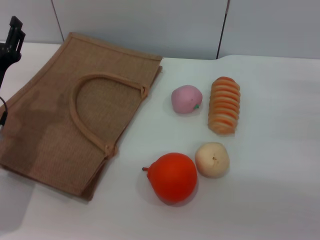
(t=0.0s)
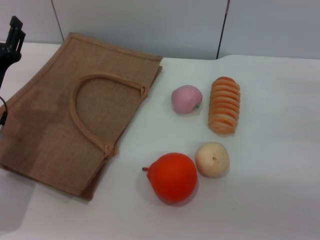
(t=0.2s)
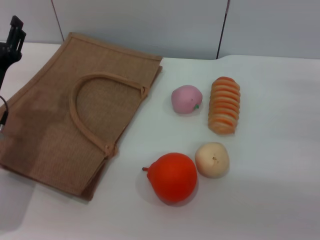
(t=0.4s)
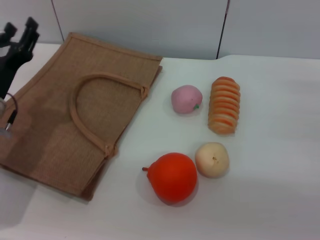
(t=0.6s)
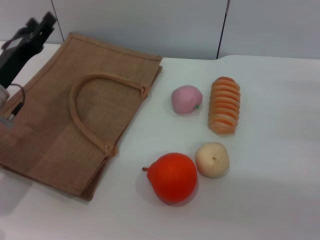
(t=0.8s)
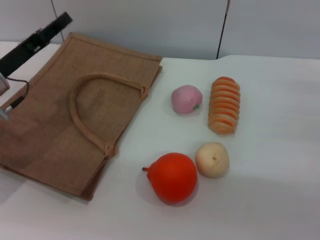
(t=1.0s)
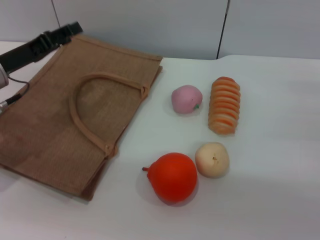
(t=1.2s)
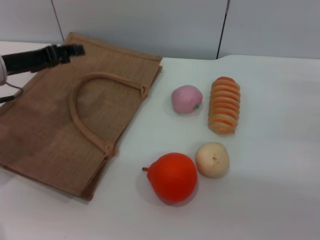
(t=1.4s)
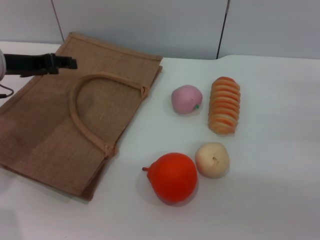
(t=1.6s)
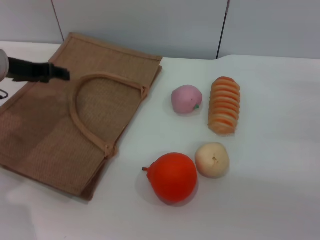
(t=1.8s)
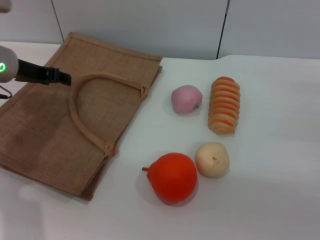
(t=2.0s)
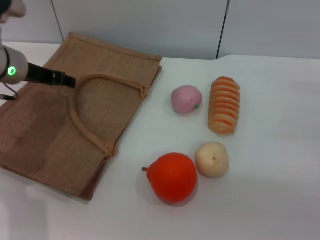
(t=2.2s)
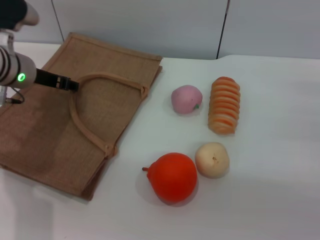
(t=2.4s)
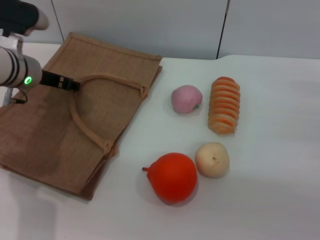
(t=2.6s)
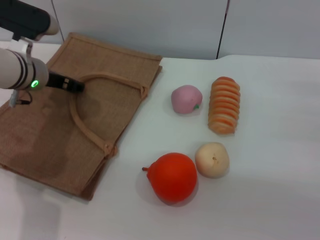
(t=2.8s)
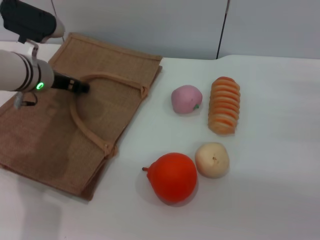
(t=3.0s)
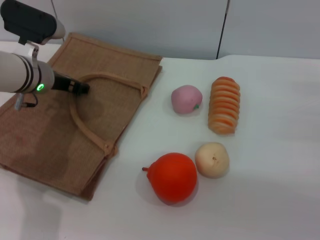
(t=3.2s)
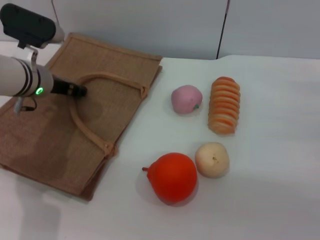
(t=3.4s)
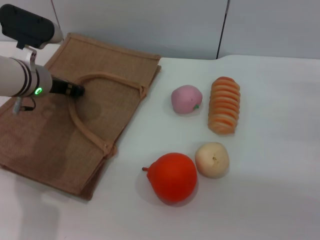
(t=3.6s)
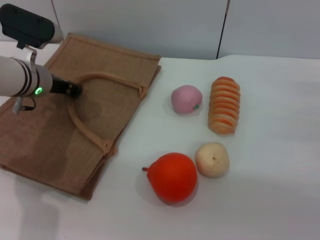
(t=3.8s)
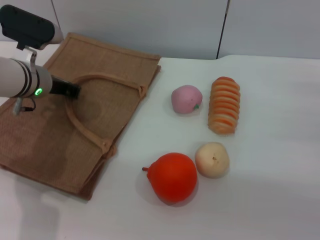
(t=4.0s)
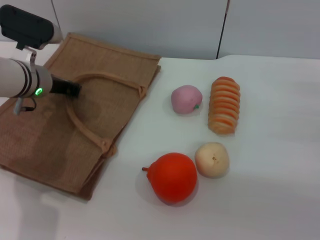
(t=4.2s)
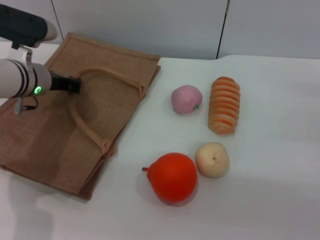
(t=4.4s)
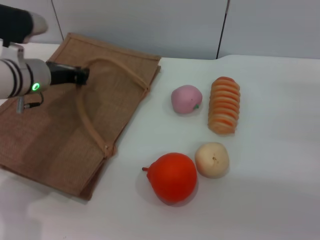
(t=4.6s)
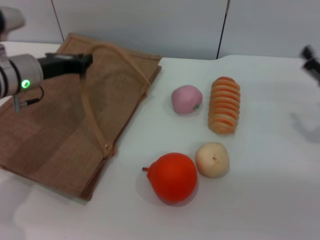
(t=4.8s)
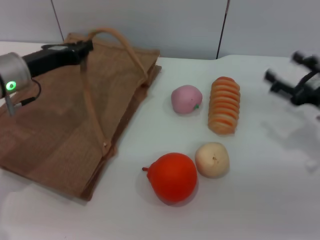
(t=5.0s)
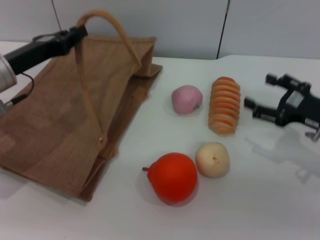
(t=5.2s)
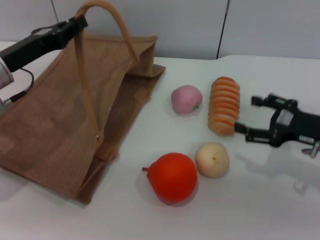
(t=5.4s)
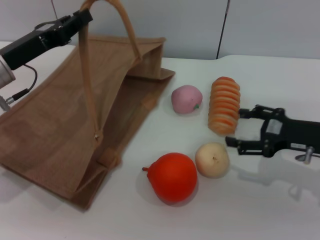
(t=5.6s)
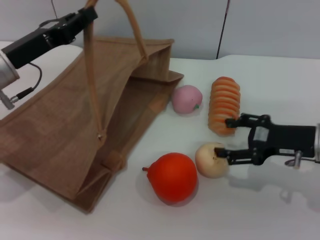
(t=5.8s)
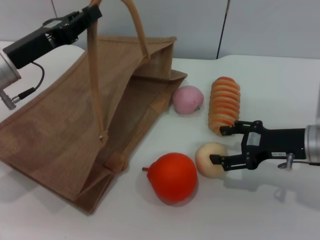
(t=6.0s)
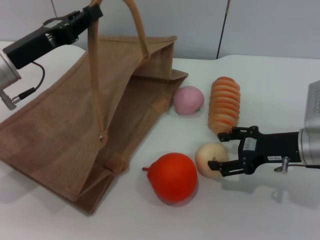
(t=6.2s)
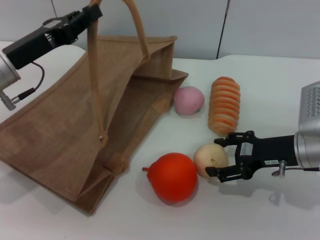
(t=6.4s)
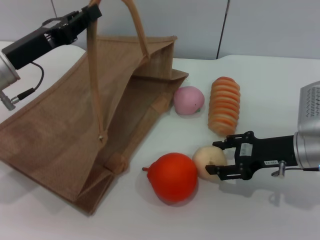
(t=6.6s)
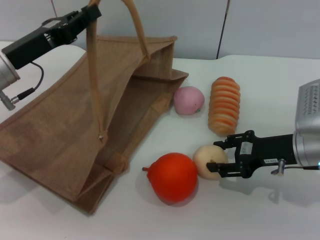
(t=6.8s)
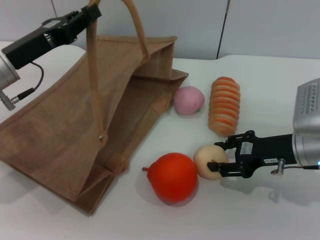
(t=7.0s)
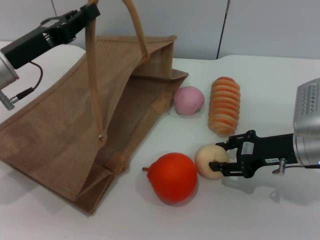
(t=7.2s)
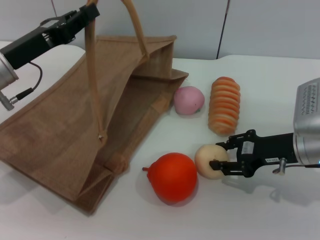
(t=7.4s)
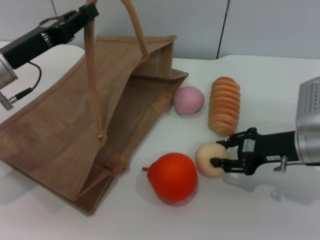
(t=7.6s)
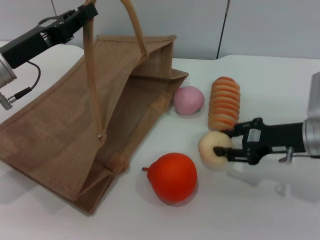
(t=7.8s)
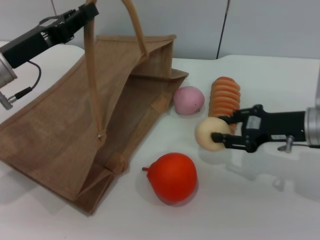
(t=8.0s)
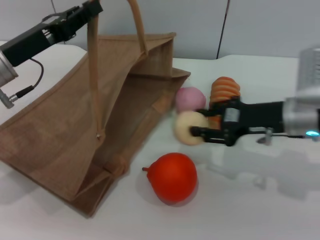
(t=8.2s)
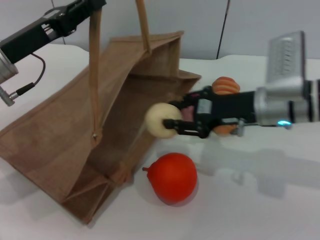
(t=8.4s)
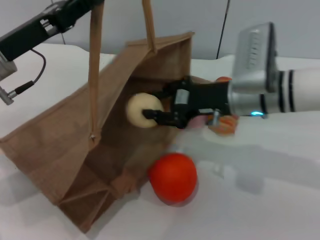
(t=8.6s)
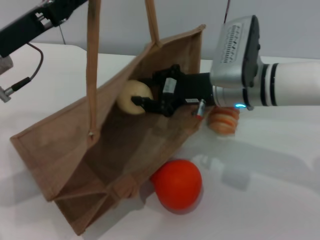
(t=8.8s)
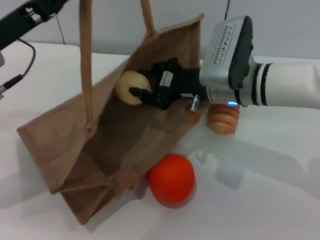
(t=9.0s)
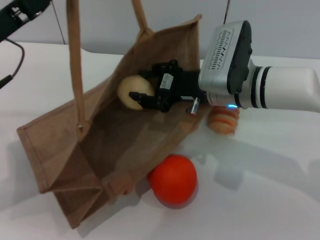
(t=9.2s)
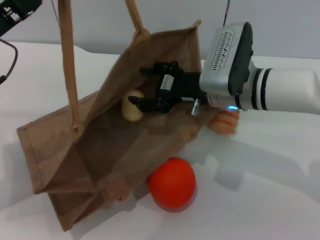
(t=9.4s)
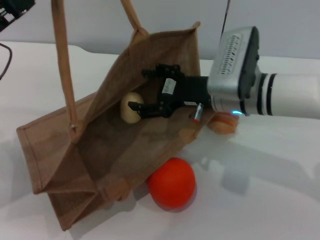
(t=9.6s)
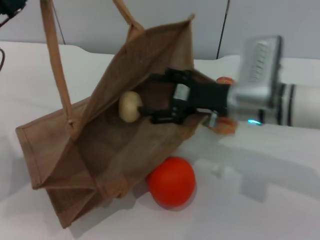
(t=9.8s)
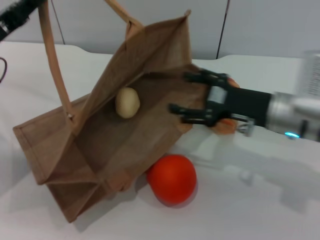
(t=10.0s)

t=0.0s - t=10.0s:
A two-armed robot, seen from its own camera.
Task of the whole recording: pick up the egg yolk pastry from the table and place it in the brown handbag.
Step, t=0.0s - t=4.6s: Lift the woven bag with the left gripper to open it.
Step, t=4.8s - t=8.0s: Pick up the egg yolk pastry with the right gripper.
Step, t=8.2s - t=10.0s: Place the egg yolk pastry into the woven bag with the right gripper.
t=0.0s - t=1.4s: The left gripper moves forward and upward, roughly 10 cm.
t=1.4s - t=2.8s: The left gripper shifts approximately 5 cm to the right.
t=2.8s - t=4.2s: The left gripper closes its fingers.
t=4.2s - t=5.8s: The right gripper moves to the left, about 10 cm. Meanwhile the left gripper travels backward by roughly 5 cm.
t=5.8s - t=7.2s: The right gripper closes.
t=7.2s - t=8.6s: The right gripper heads to the left and upward, covering about 10 cm.
t=8.6s - t=10.0s: The left gripper moves to the left, approximately 5 cm, while the right gripper goes approximately 5 cm to the right, and opens up.

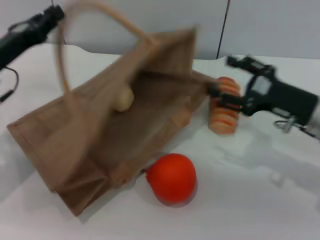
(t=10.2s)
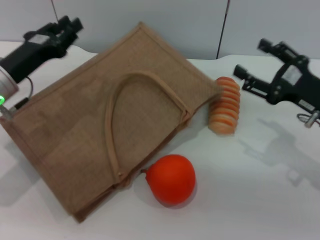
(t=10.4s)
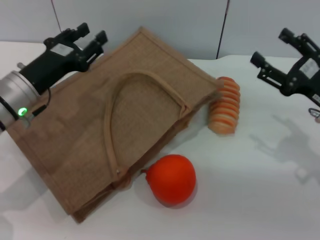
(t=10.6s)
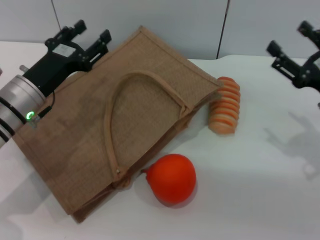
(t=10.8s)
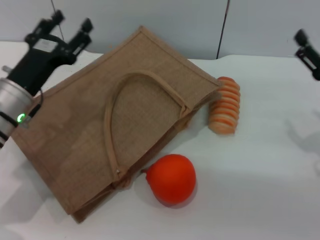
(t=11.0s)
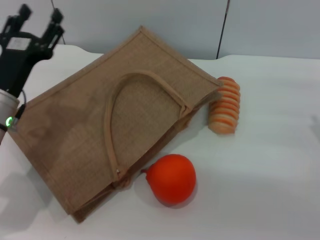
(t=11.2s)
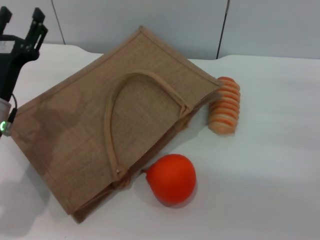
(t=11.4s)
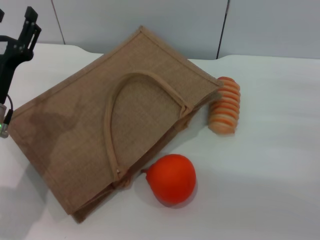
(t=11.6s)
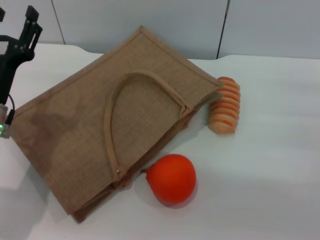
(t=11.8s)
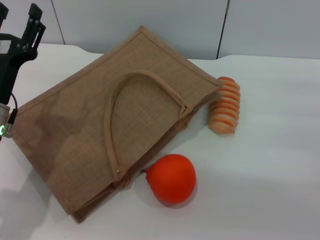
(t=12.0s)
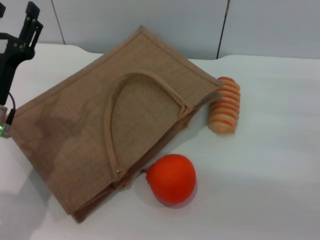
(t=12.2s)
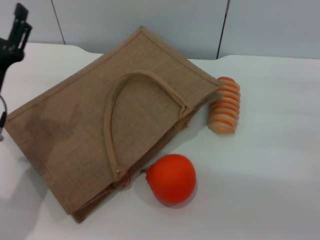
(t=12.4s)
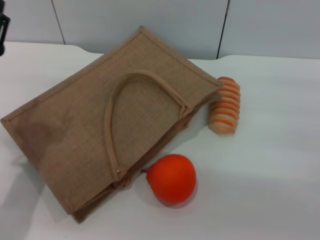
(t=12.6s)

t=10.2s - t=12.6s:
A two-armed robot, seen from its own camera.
Task of the whole recording: pick up the egg yolk pastry from the table and place it in the brown handbag.
Step, t=10.2s - t=10.6s: Lower the woven bag with the left gripper to close it.
t=10.2s - t=11.4s: The left gripper shifts by approximately 10 cm, and opens; the right gripper shifts about 5 cm to the right.
t=11.4s - t=12.6s: There are only small adjustments of the grippers.
